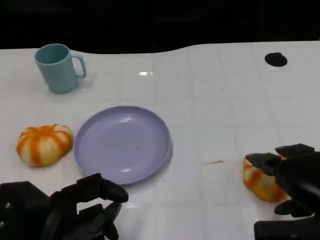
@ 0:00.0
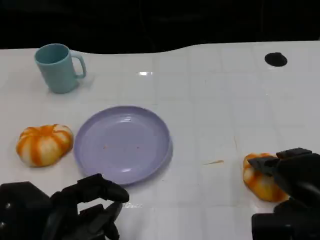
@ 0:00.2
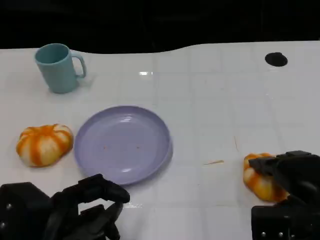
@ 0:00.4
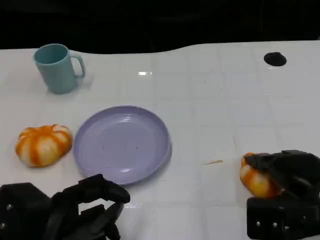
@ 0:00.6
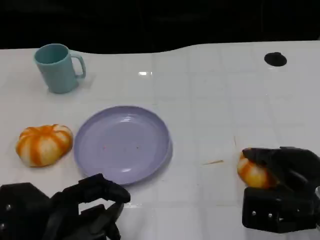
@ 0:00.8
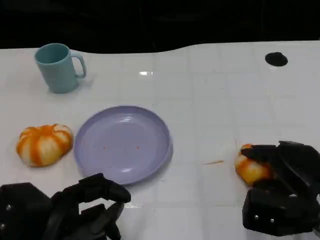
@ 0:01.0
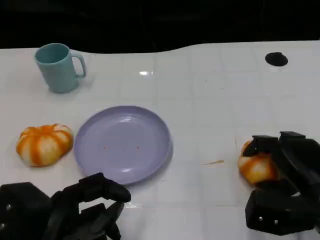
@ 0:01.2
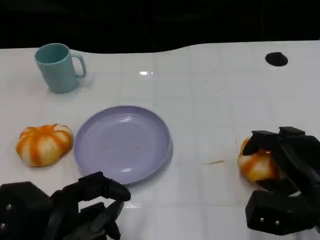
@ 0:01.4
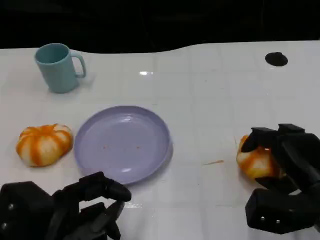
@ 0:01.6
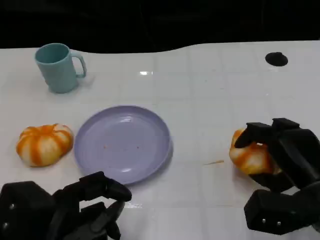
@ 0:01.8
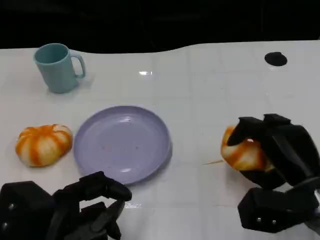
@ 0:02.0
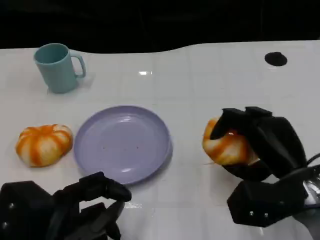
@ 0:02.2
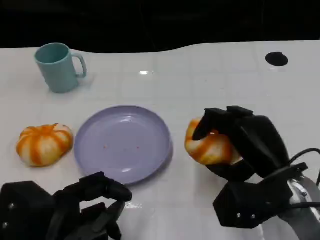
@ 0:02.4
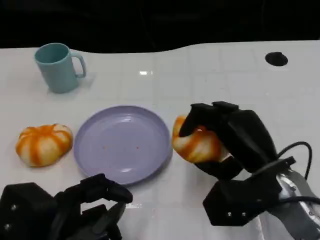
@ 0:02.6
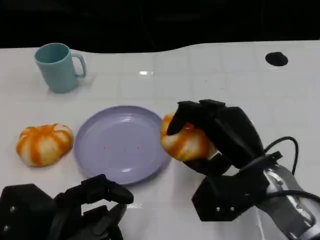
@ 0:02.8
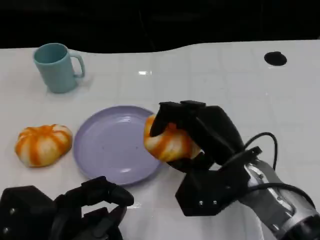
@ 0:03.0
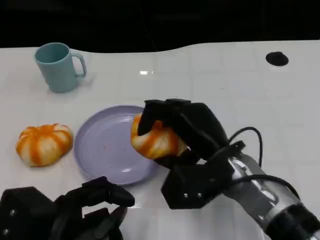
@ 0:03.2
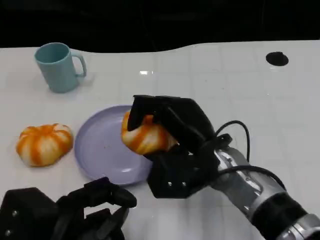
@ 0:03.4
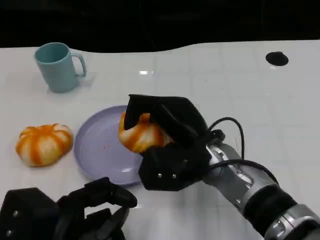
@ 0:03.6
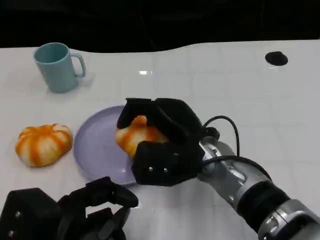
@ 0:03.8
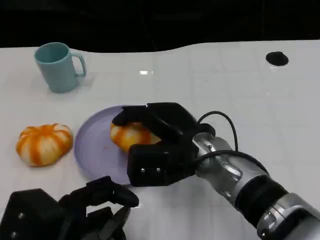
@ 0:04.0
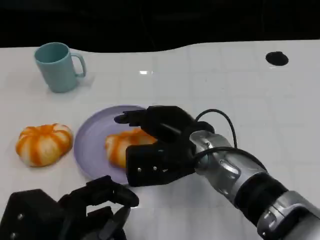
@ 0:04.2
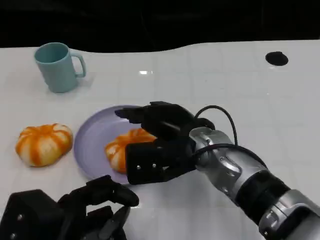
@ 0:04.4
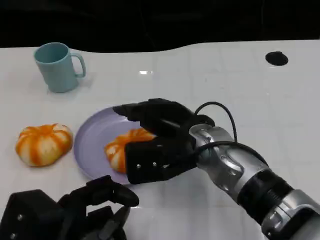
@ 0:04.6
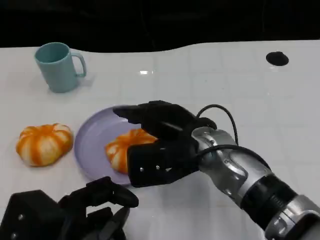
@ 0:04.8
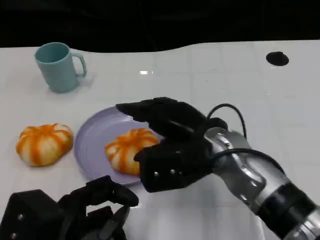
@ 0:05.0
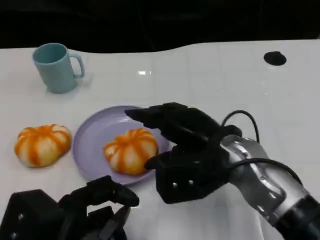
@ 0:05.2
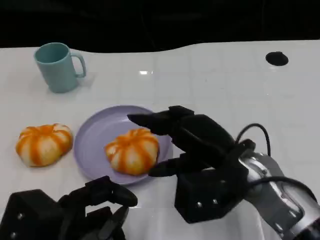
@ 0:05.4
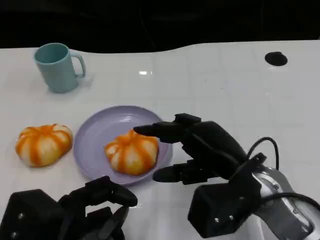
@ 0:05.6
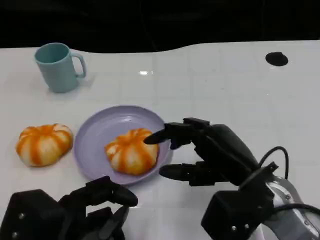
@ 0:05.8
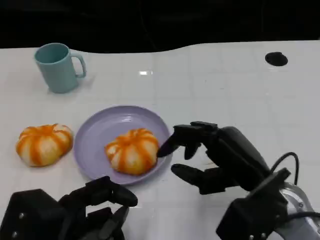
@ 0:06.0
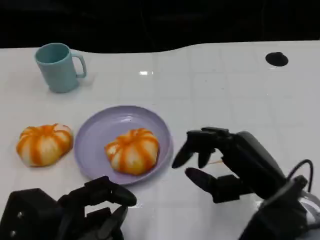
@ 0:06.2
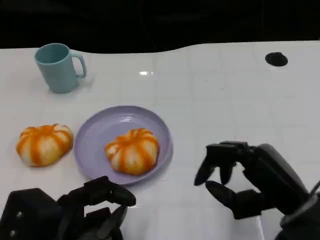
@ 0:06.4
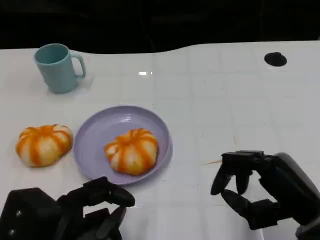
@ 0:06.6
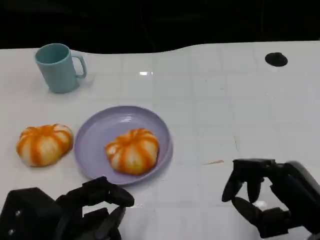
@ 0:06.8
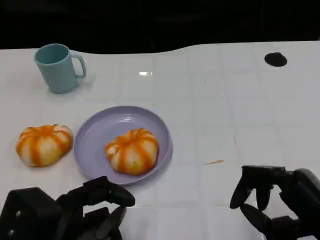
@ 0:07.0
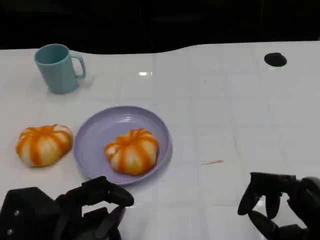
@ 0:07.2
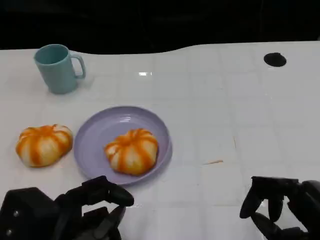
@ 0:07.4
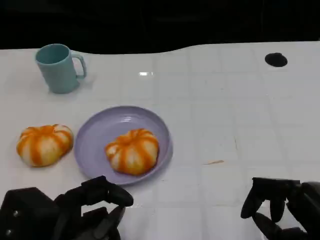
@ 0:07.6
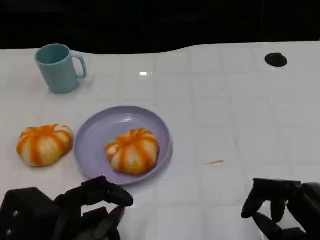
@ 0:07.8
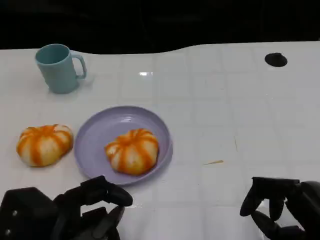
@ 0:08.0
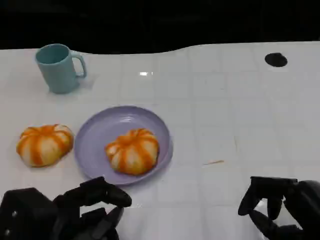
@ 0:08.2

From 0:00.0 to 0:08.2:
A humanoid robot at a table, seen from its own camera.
Task of the whole recording: Grasp the bread from the table and place it into the plate.
From 0:00.0 to 0:01.6: The right hand moves about 5 cm.
From 0:01.6 to 0:03.2: The right hand moves to the left, about 15 cm.
From 0:05.0 to 0:06.6: The right hand heads to the right and backward, covering roughly 15 cm.
From 0:06.6 to 0:08.2: There are only small adjustments of the hands.

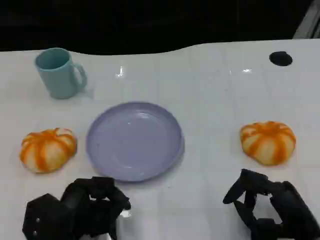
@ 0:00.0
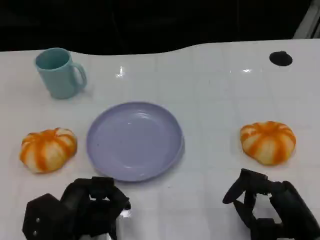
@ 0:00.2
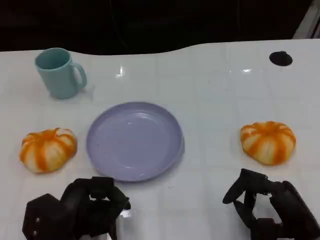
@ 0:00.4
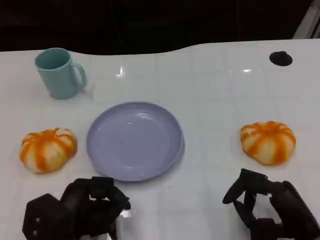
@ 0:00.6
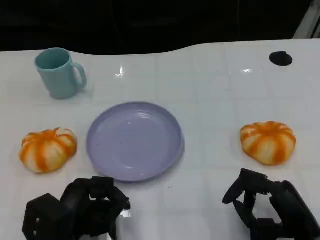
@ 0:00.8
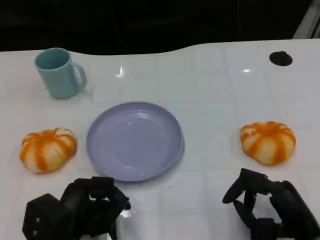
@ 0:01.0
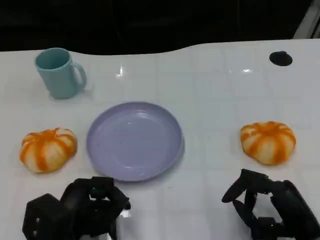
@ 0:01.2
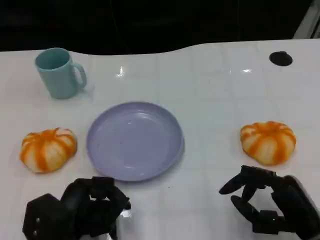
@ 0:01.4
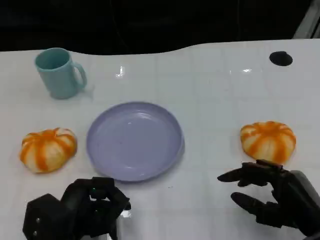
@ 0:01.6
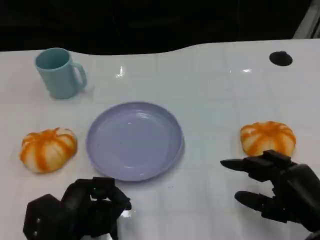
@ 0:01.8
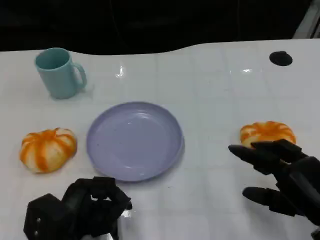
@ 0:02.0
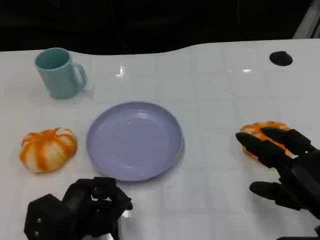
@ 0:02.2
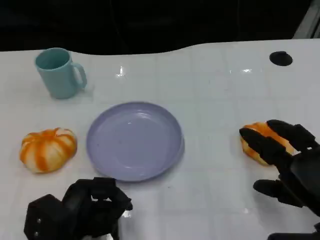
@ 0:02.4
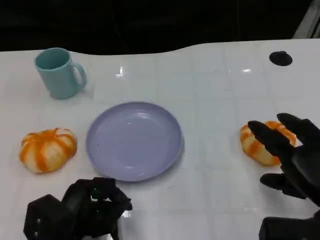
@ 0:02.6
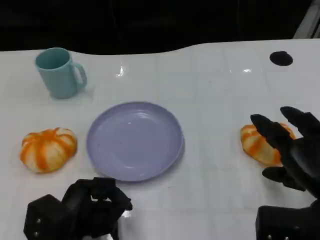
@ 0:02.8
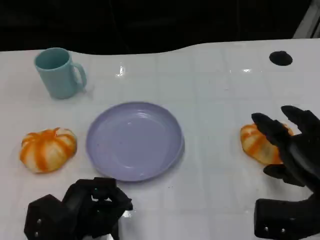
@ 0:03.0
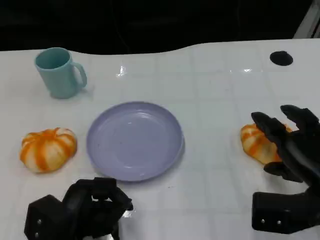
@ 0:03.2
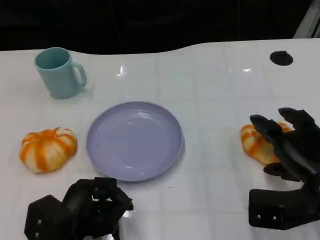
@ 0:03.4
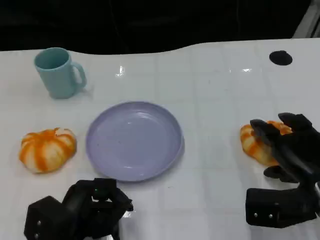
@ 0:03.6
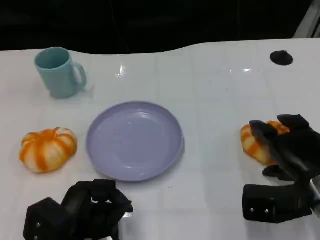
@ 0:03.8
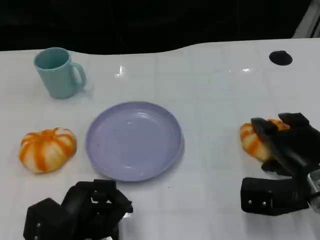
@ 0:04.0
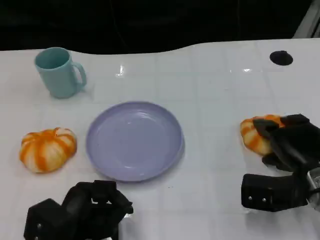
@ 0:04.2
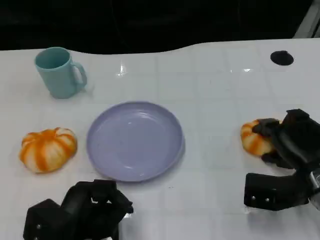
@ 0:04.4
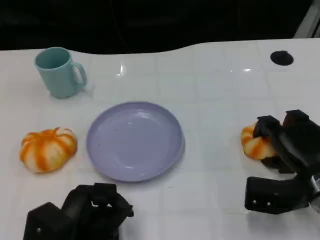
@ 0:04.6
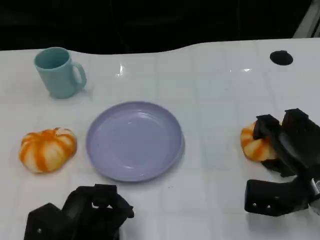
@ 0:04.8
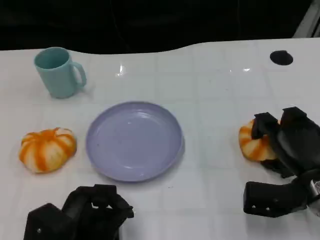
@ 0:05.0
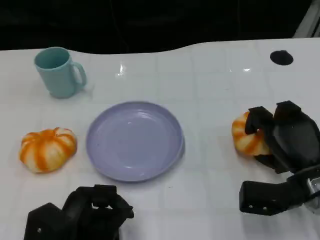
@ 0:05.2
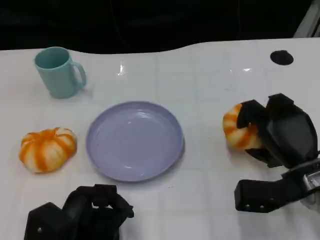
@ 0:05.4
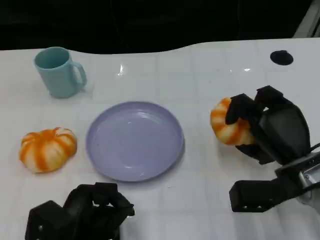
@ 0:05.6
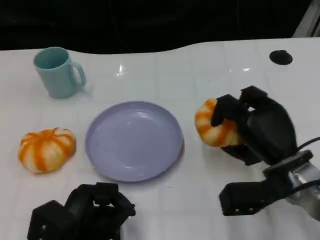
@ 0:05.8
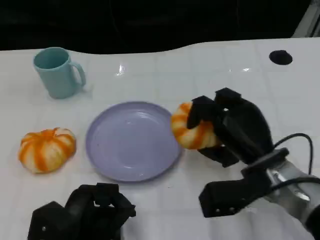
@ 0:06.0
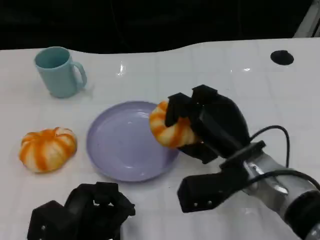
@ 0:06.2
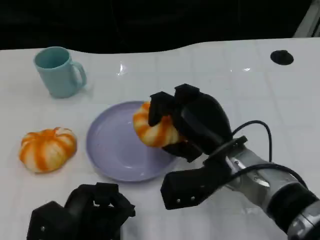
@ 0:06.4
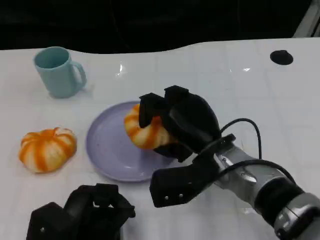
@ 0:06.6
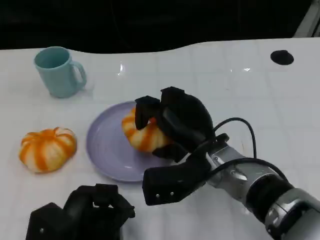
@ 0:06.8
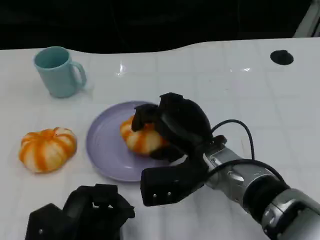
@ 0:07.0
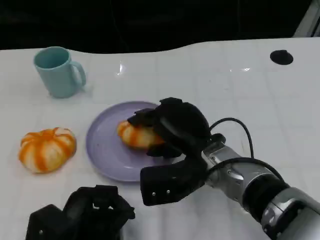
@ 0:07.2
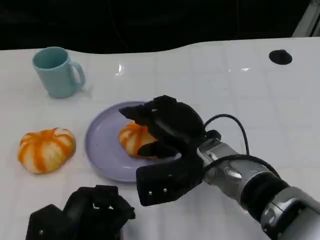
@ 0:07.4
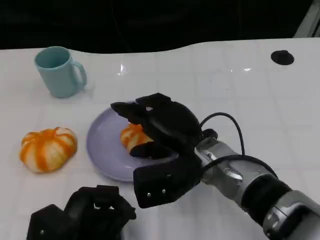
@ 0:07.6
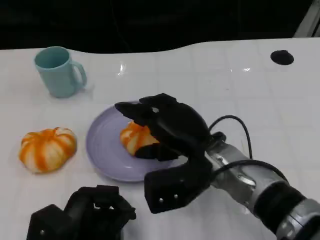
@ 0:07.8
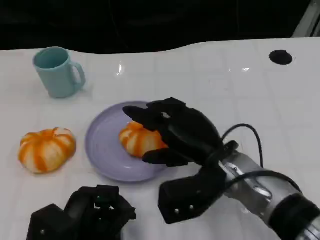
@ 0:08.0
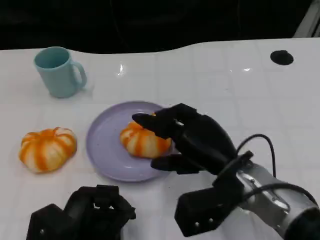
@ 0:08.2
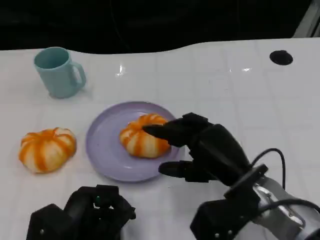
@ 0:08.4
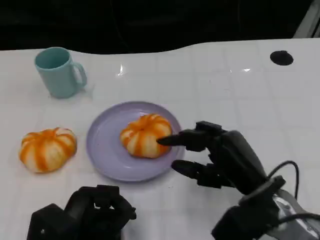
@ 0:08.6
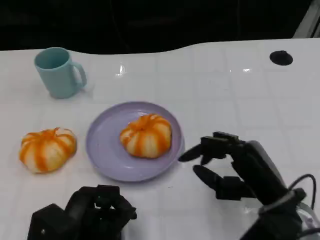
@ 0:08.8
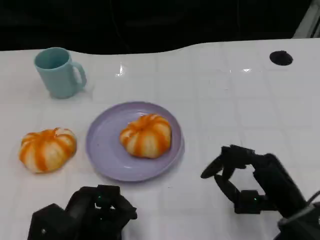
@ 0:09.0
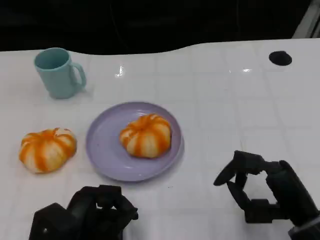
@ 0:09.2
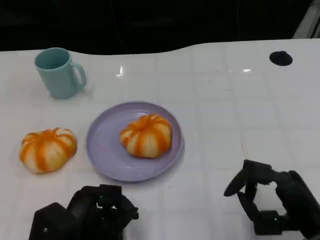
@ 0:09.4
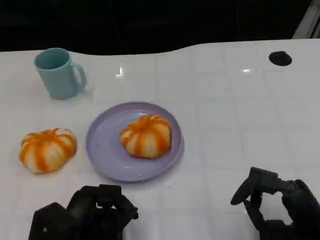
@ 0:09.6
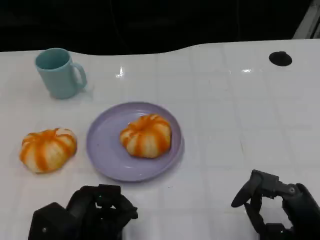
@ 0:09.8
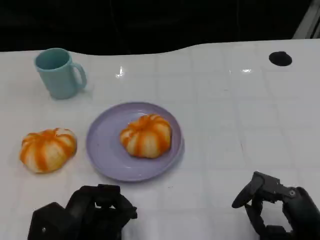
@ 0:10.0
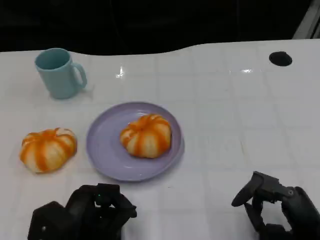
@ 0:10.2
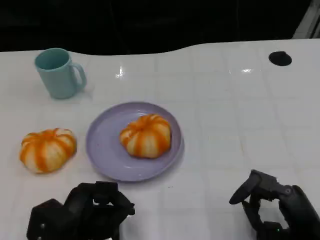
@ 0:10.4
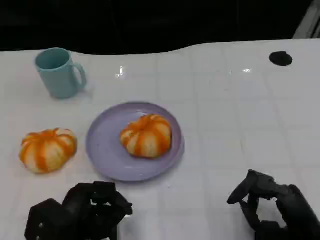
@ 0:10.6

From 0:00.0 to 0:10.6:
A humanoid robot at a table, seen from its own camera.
Task of the whole recording: Grasp the bread from the table and place it into the plate.
From 0:00.0 to 0:01.6: There are only small adjustments of the hands.
From 0:01.6 to 0:03.0: The right hand moves about 5 cm.
From 0:03.0 to 0:04.6: The right hand goes roughly 5 cm downward.
From 0:04.6 to 0:06.0: The right hand is displaced to the left by some 10 cm.
From 0:06.0 to 0:07.6: The right hand goes some 10 cm to the left.
From 0:07.6 to 0:09.0: The right hand moves to the right and backward, some 15 cm.
From 0:09.0 to 0:10.6: The right hand ends up some 5 cm from where it was.
